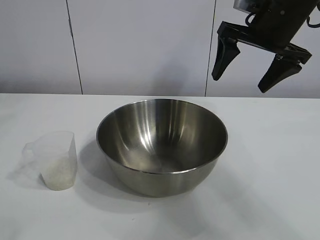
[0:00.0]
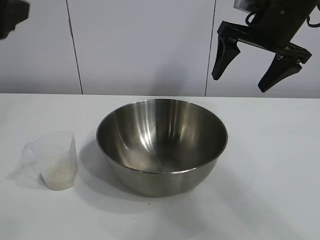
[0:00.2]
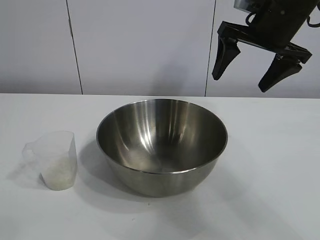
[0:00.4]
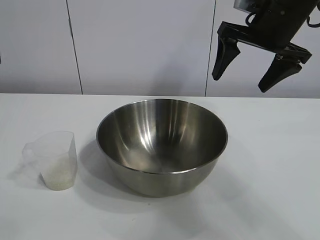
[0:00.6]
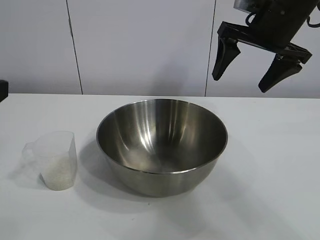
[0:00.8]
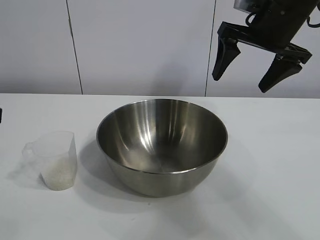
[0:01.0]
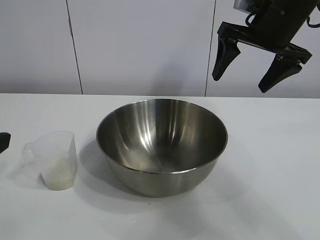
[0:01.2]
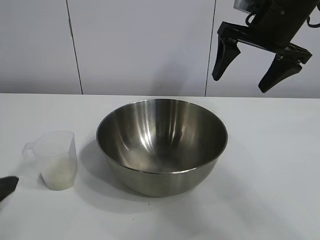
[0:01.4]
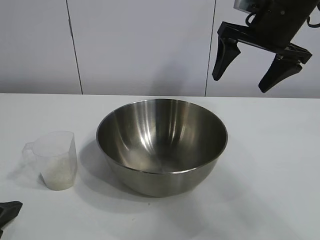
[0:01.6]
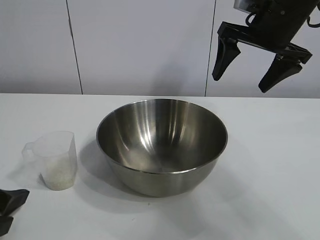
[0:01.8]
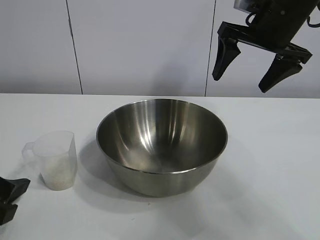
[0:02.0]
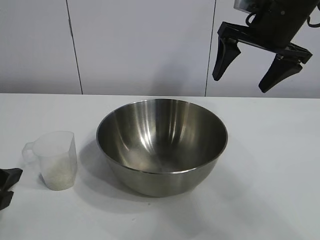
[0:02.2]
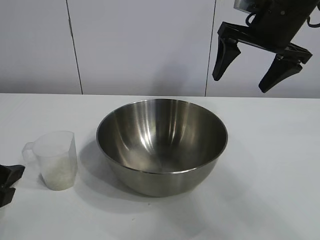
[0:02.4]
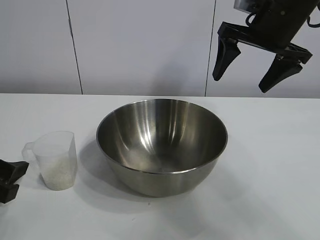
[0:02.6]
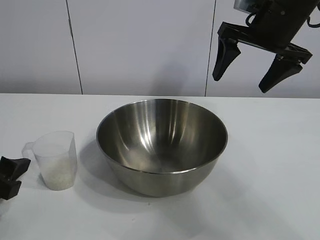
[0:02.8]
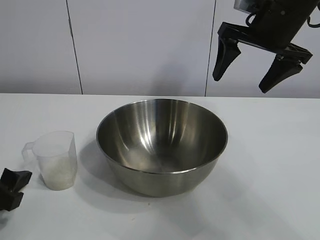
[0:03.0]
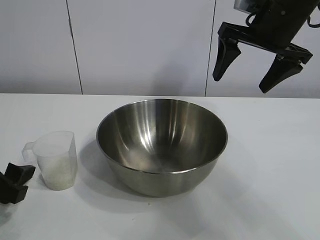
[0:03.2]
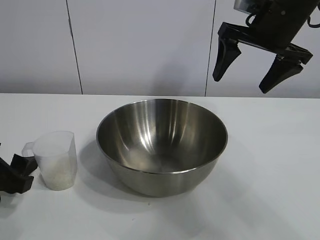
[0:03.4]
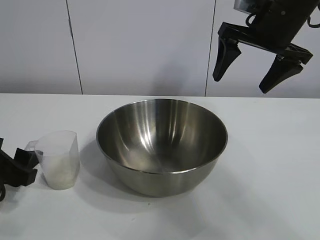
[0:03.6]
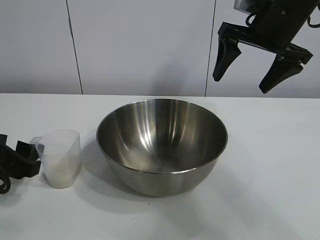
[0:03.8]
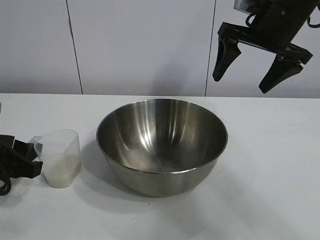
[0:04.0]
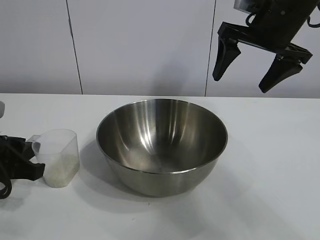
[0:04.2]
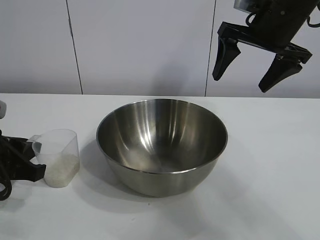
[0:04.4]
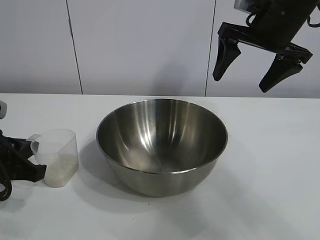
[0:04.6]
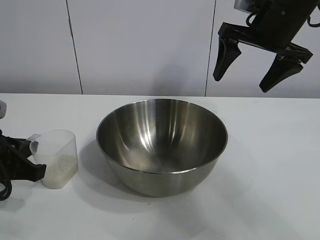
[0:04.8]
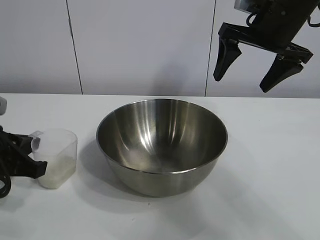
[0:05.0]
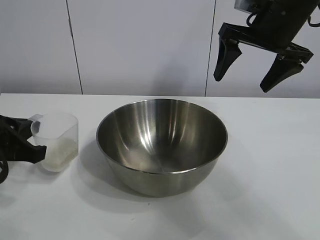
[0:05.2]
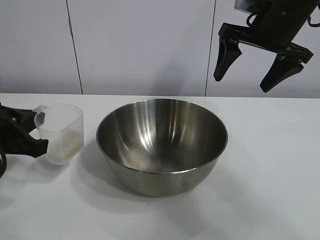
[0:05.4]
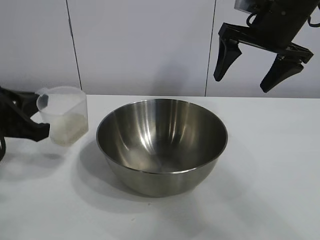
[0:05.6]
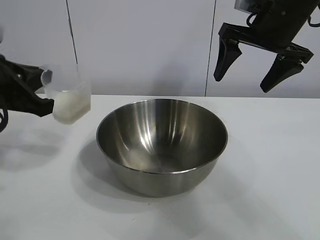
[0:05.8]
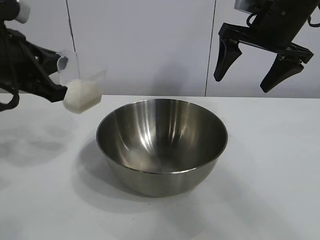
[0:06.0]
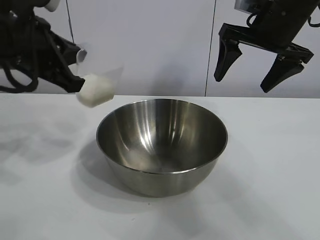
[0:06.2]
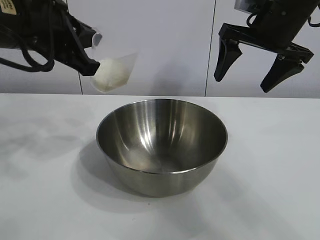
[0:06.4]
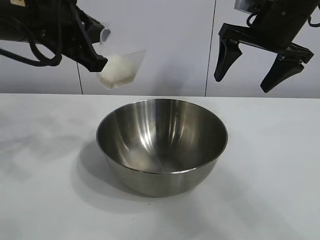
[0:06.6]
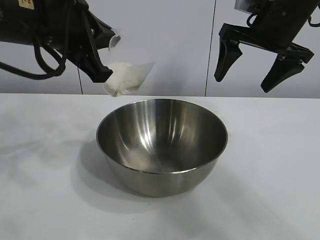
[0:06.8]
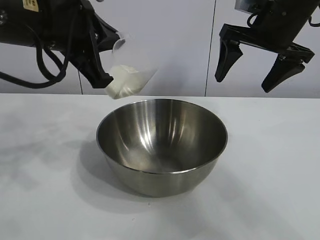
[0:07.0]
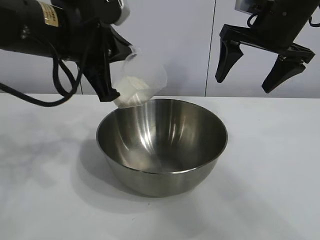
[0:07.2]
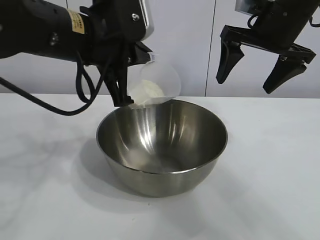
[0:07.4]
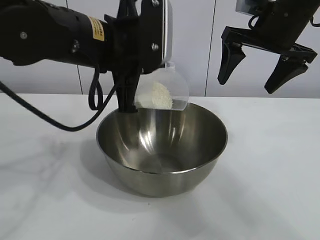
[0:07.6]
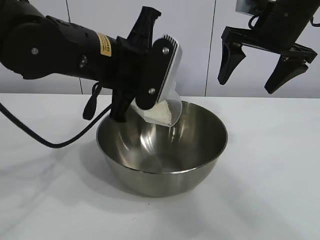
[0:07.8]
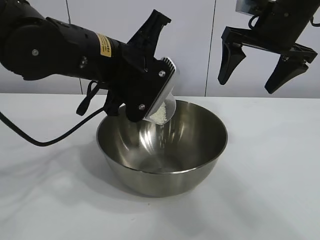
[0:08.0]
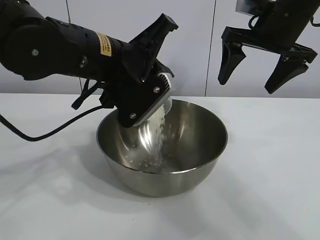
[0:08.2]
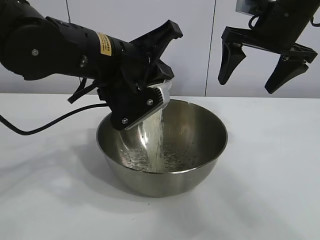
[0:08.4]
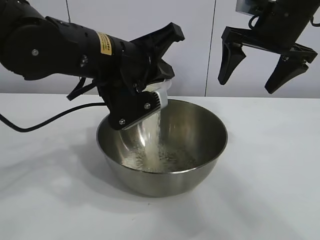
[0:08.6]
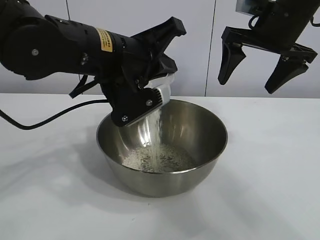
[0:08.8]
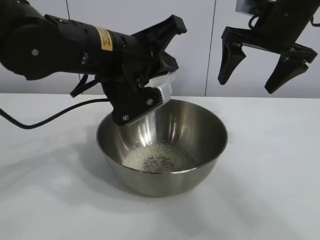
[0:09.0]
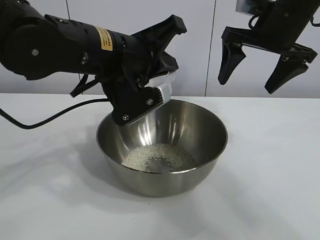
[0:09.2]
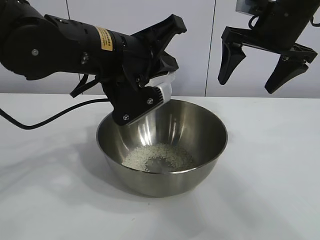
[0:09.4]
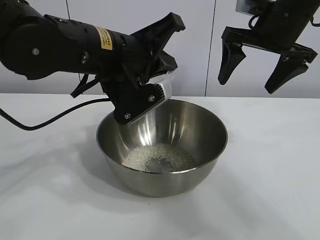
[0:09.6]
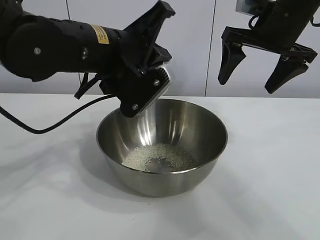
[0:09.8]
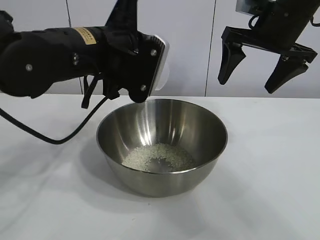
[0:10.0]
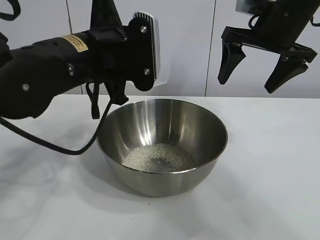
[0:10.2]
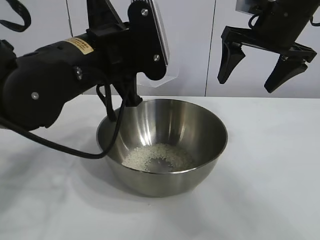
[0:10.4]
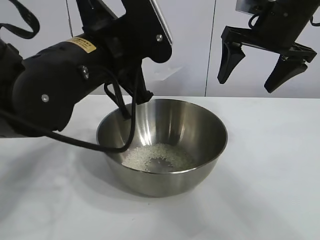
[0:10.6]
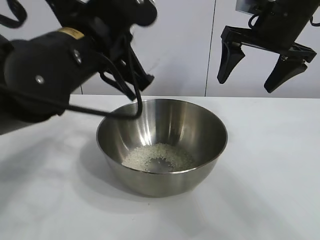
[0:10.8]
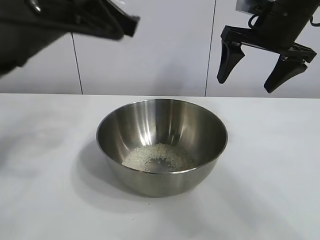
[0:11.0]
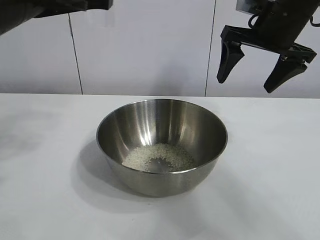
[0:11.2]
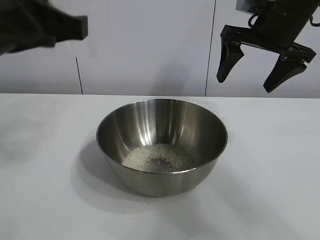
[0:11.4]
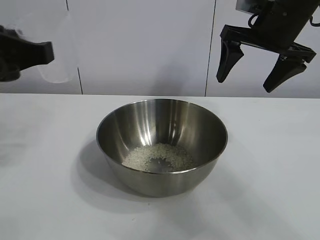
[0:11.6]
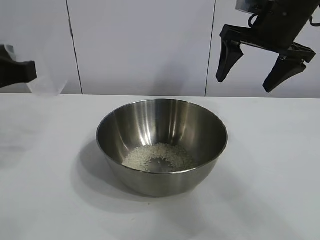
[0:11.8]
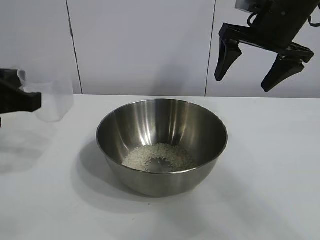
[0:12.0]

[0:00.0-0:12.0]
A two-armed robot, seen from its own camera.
Task of the whole recording: the right gripper grasp the rice container and place it in the center of the table, the left gripper grasp the rice scoop and pour the rice into the rice container.
Step, 0:00.0 to 0:04.8: Grasp the cup with rice in it with left gripper.
Step, 0:05.0 to 0:09.2: Pour the rice from the cup into the bowl with the left gripper.

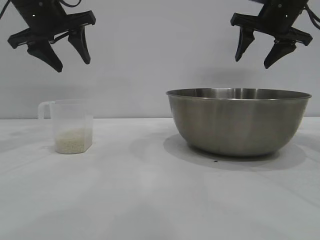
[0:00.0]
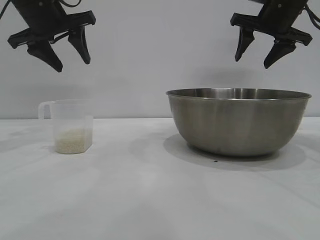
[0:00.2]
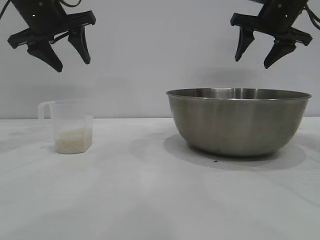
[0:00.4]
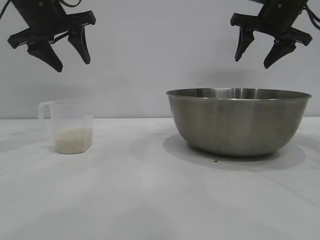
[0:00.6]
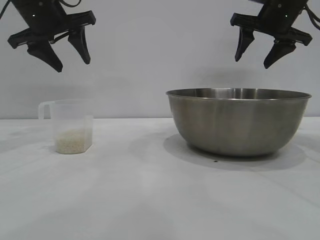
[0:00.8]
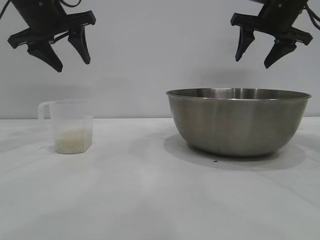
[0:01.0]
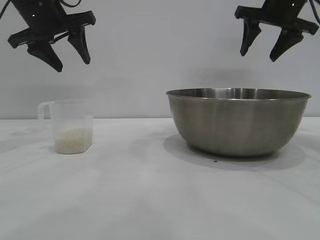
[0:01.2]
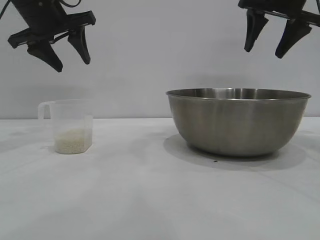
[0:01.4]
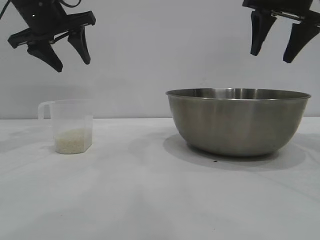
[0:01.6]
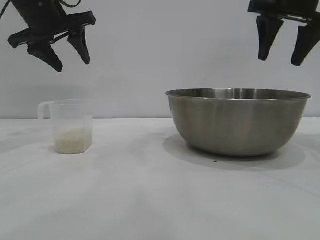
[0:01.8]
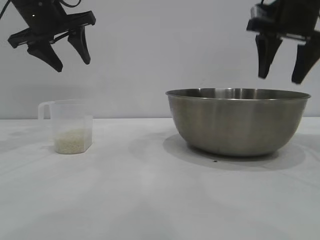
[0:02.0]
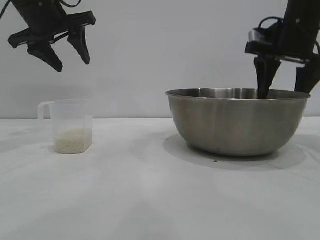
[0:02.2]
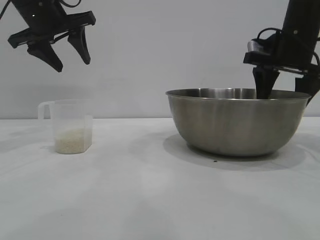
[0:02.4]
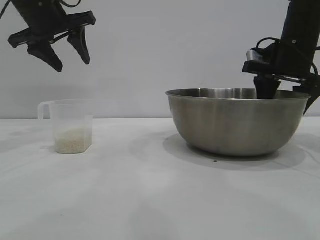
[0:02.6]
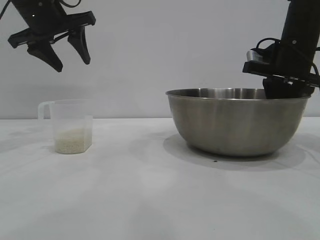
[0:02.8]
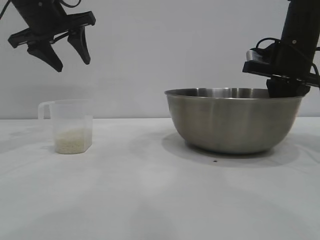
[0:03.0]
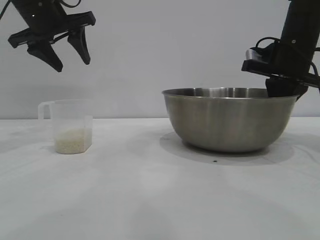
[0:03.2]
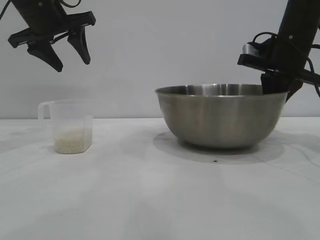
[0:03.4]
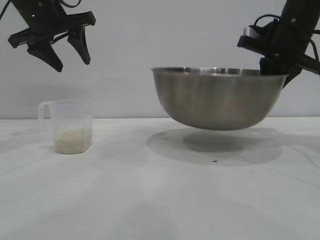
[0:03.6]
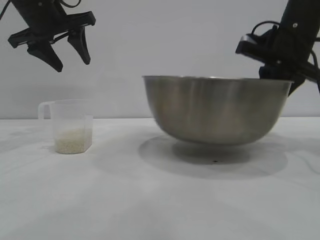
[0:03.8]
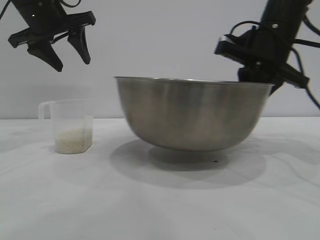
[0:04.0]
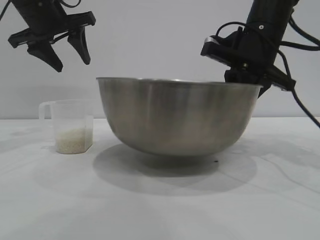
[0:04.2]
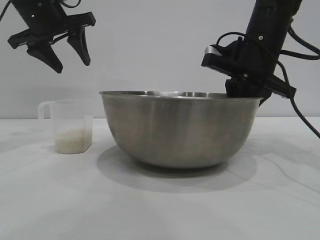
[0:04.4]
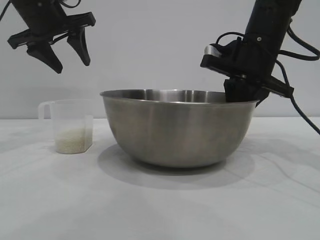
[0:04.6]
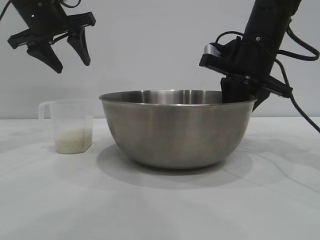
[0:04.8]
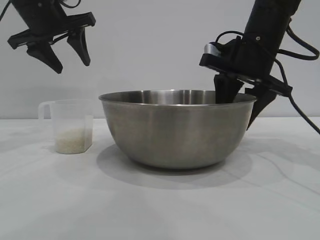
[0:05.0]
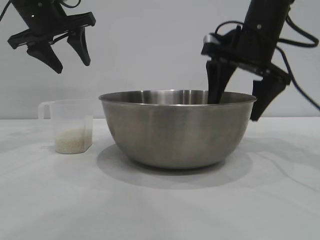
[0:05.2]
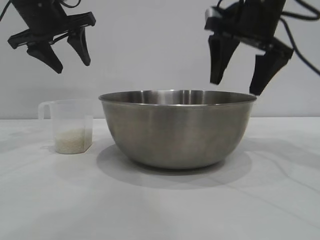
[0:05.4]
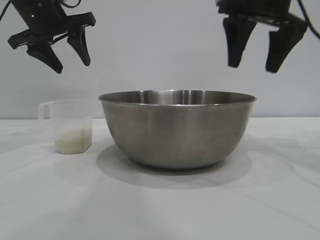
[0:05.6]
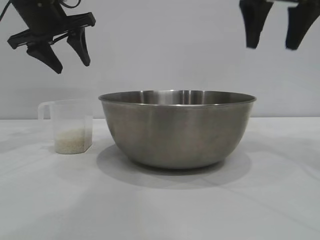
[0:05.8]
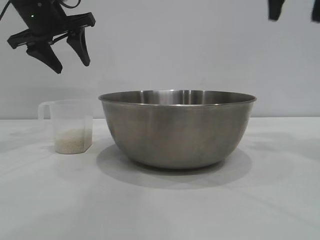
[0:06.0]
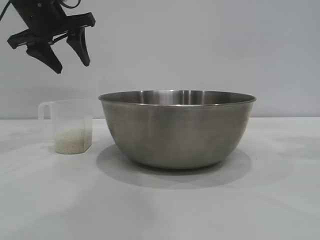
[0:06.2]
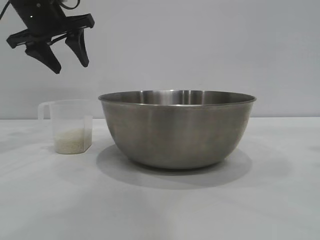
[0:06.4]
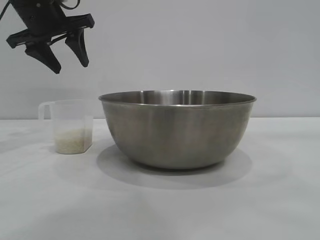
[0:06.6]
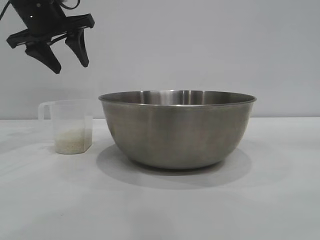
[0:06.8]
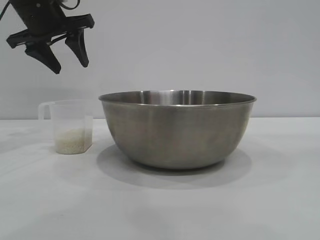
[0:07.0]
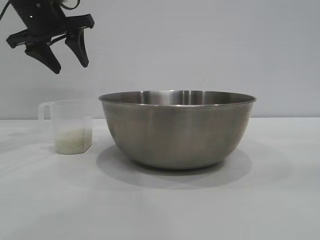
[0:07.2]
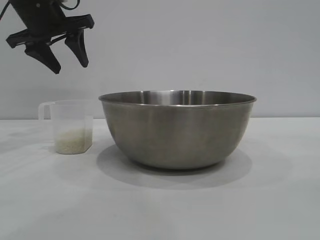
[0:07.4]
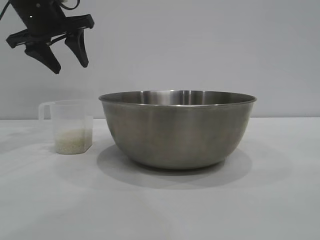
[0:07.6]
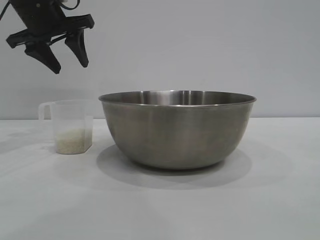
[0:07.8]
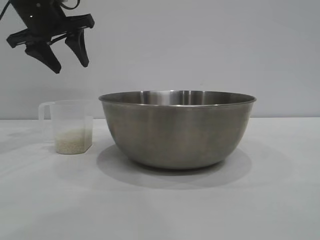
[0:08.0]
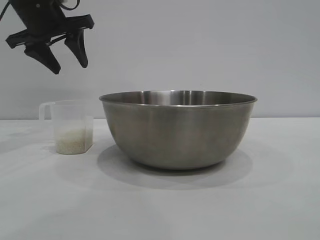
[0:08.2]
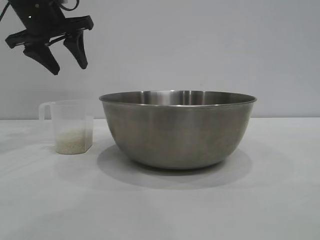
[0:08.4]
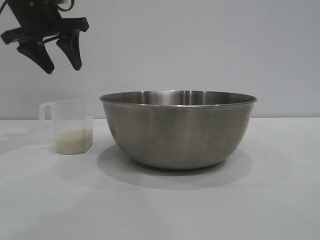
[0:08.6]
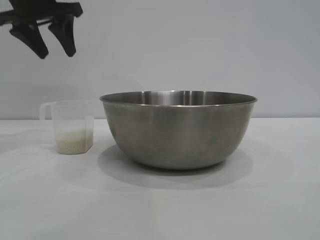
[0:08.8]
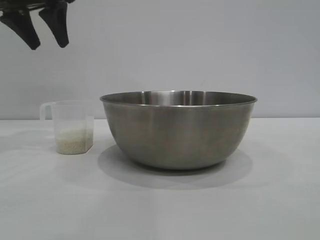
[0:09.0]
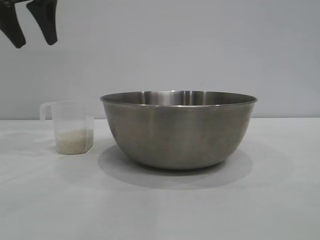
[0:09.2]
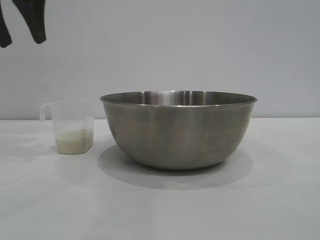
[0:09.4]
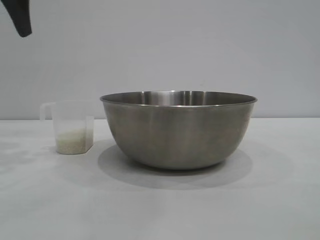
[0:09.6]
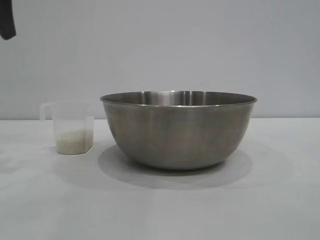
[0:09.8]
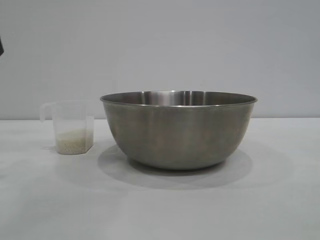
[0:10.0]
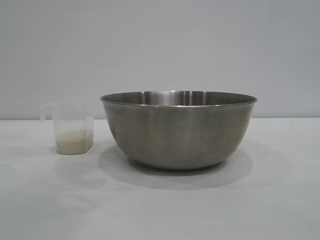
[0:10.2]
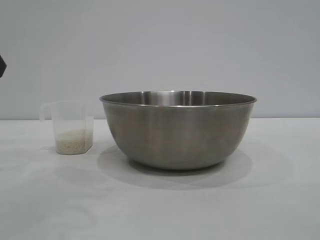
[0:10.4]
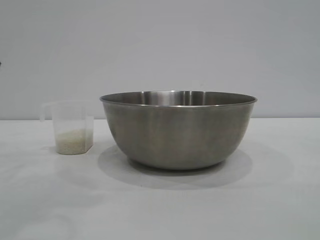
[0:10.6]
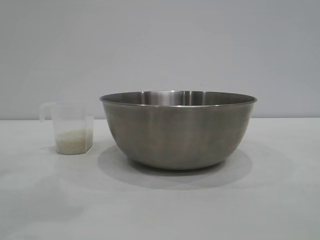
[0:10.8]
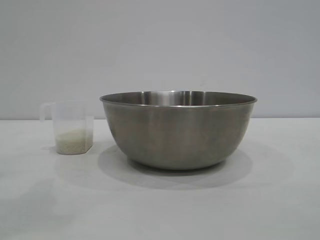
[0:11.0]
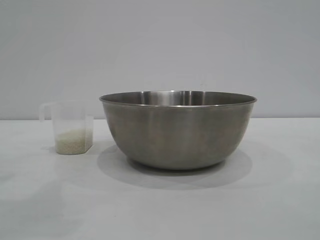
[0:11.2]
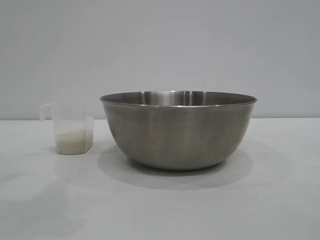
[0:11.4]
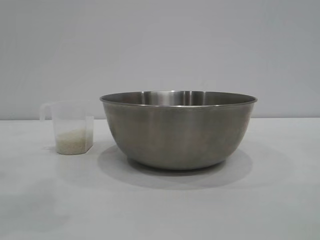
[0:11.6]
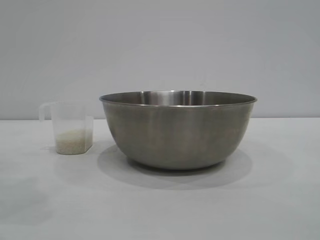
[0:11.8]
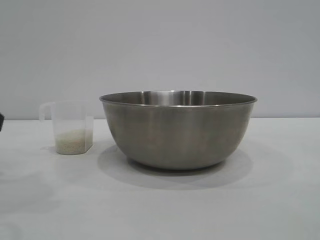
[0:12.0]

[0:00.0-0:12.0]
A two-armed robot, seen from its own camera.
Task of the whole recording: the right gripper grasp the rice container and place it in the center of the table, the left gripper grasp the rice scoop and pour the rice into the rice container.
Step, 0:00.0 to 0:03.4: Pick up the bowl with the right gripper.
Step, 0:03.6 to 0:05.4: Place the bowl in the center of view with the right gripper.
